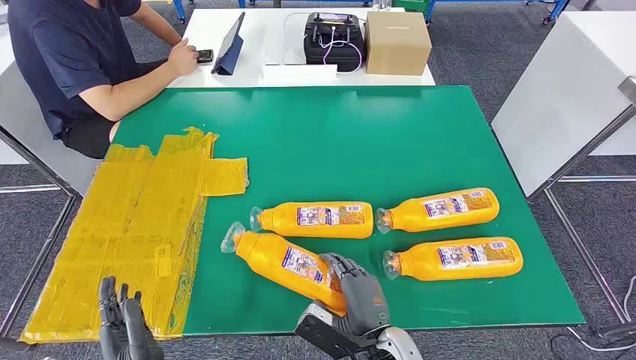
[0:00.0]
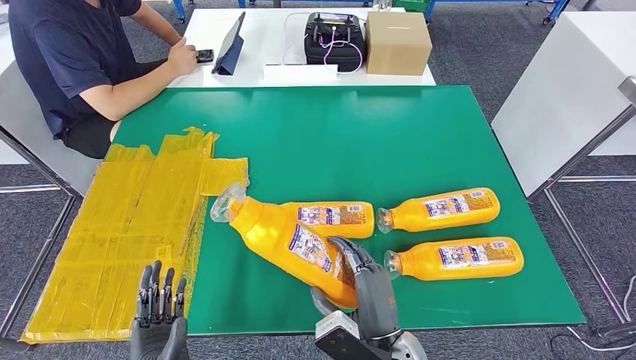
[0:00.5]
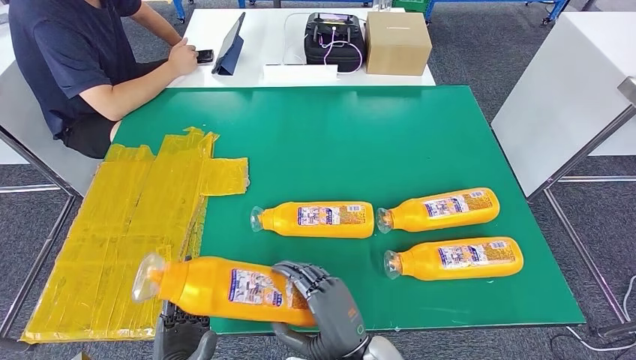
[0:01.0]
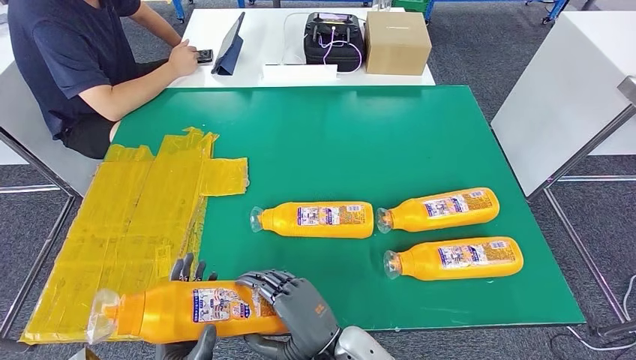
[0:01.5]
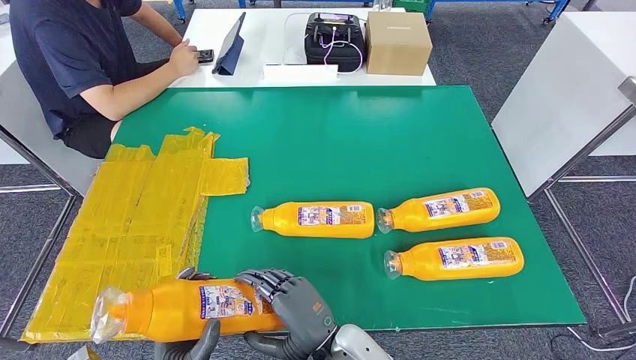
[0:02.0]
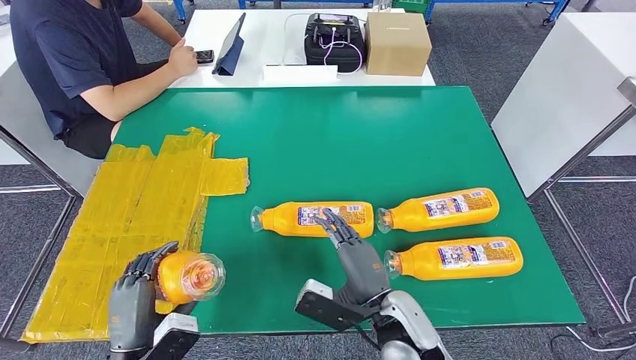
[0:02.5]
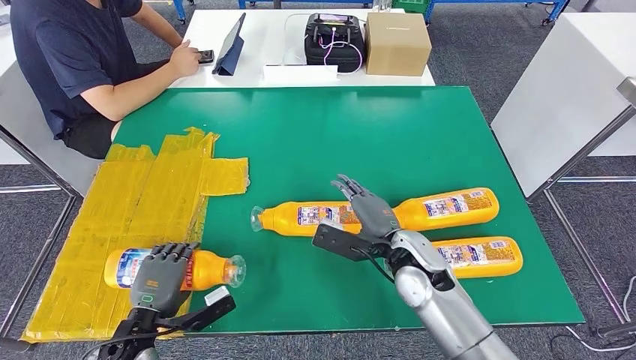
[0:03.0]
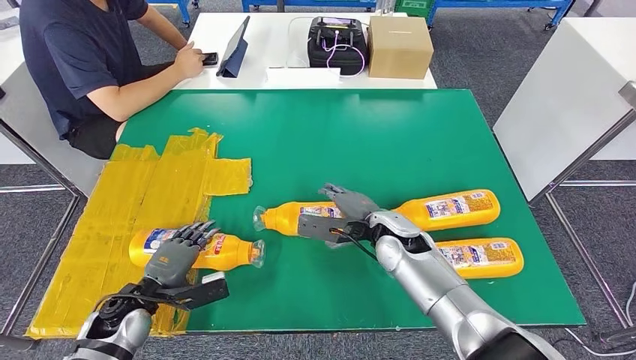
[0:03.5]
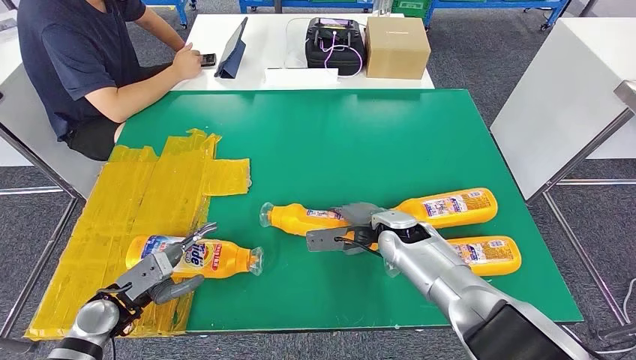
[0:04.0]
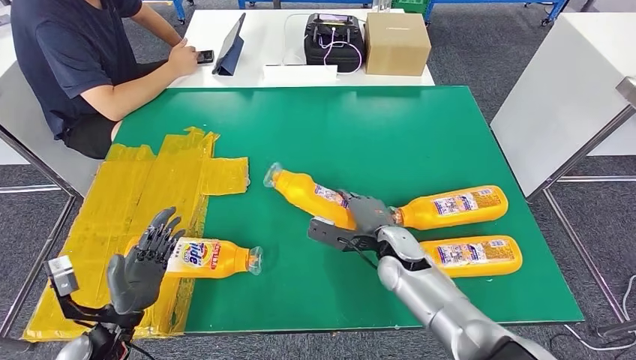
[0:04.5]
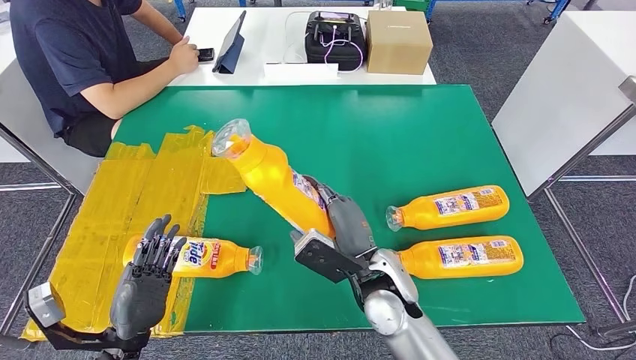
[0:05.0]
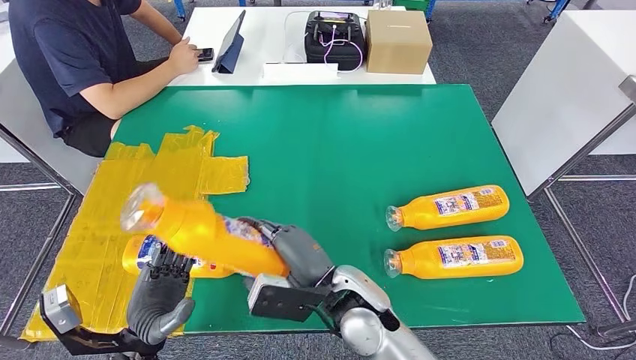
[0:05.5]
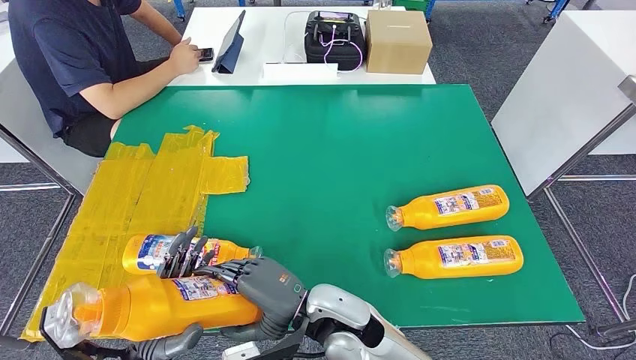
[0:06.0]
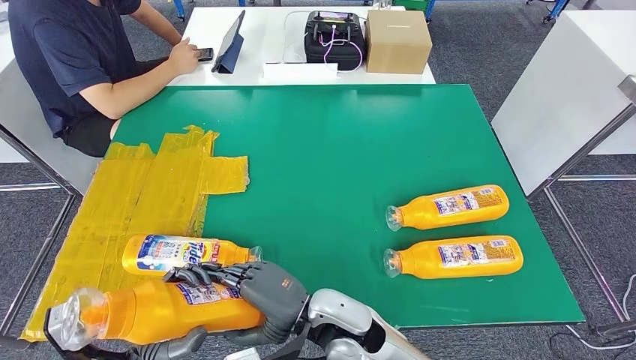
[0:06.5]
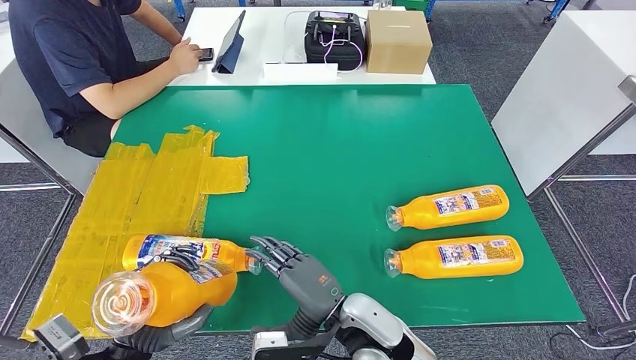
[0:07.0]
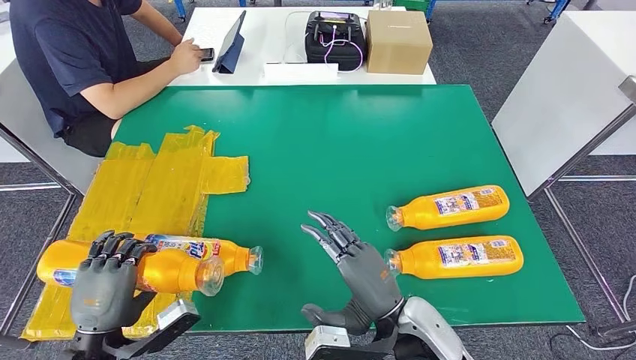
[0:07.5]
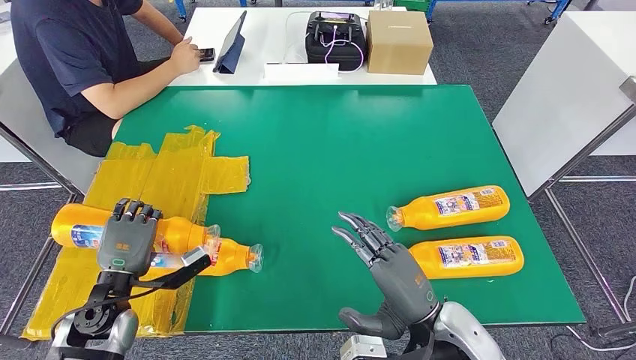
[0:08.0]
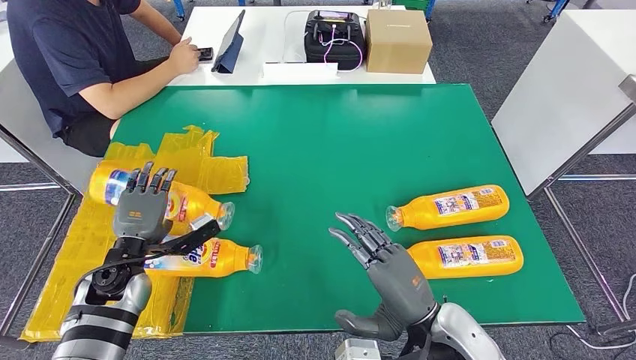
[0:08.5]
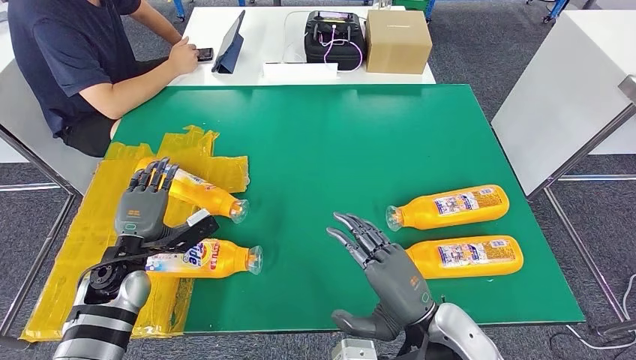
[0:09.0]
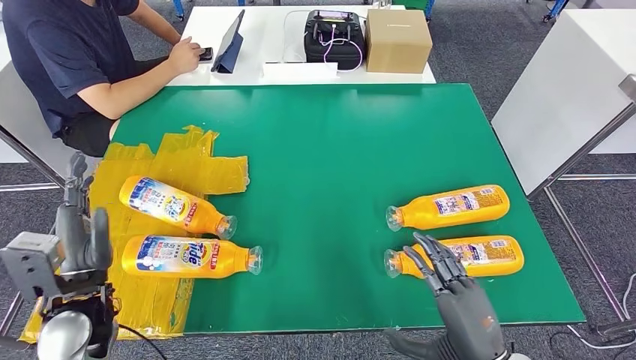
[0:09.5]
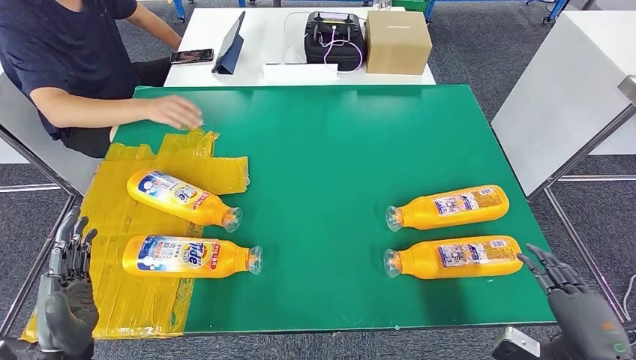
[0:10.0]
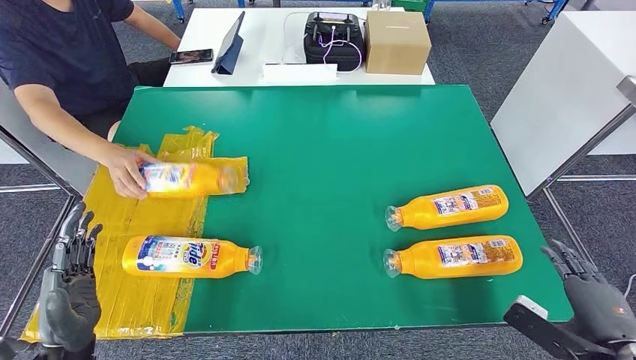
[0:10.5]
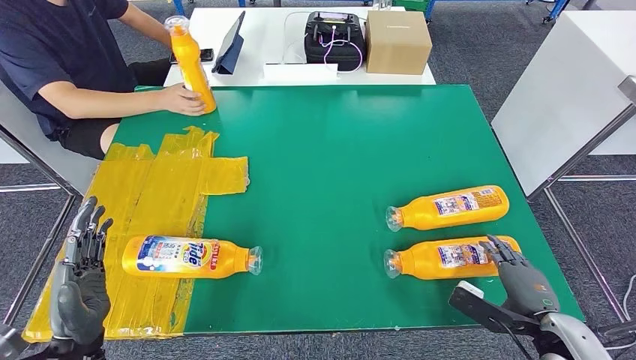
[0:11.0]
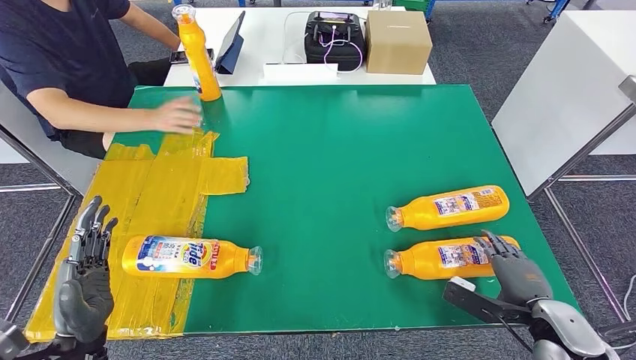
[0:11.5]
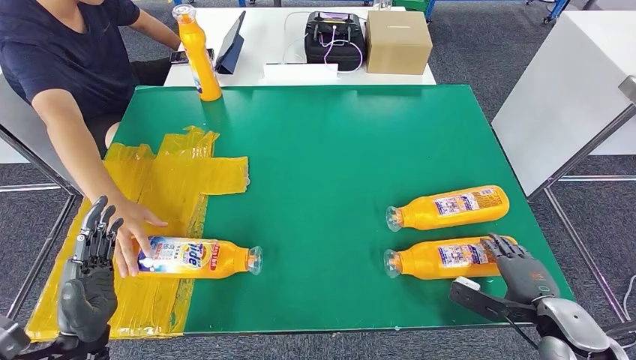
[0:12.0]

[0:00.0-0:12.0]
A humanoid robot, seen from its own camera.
Step, 0:00.0 to 0:02.0: Take the bottle from the table.
Step, 0:02.5 to 0:03.5: Flip the bottle to face forward.
Step, 0:04.0 to 0:06.5: Pick up the bottle from the table.
Step, 0:07.0 to 0:10.0: Flip the bottle to face forward.
0:06.0 to 0:08.0: The left hand shifts some 15 cm forward and to the left; the right hand travels to the right by about 15 cm.
0:10.0 to 0:12.0: The right hand shifts some 15 cm forward and downward.

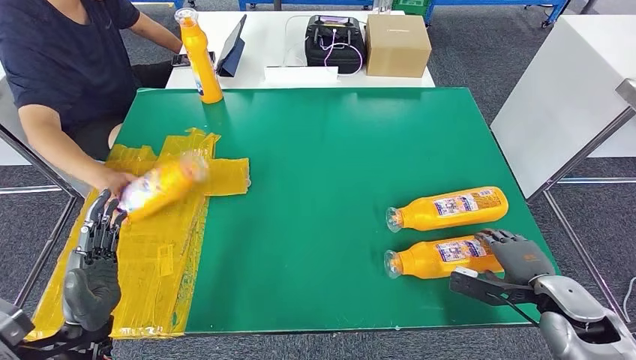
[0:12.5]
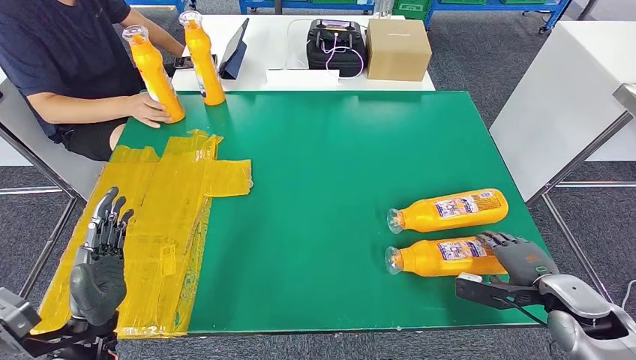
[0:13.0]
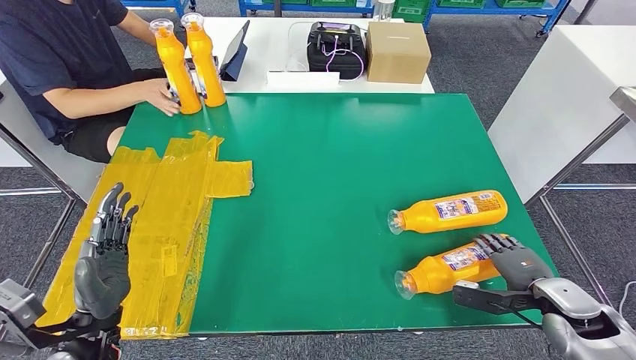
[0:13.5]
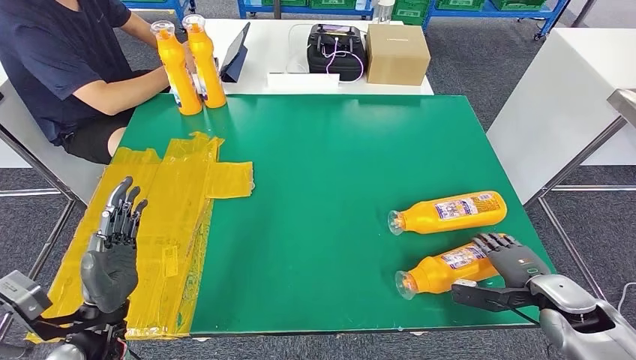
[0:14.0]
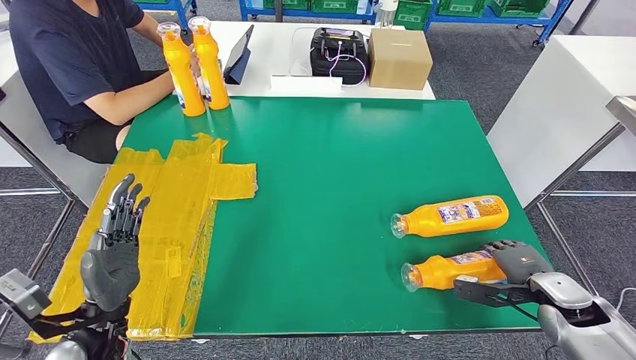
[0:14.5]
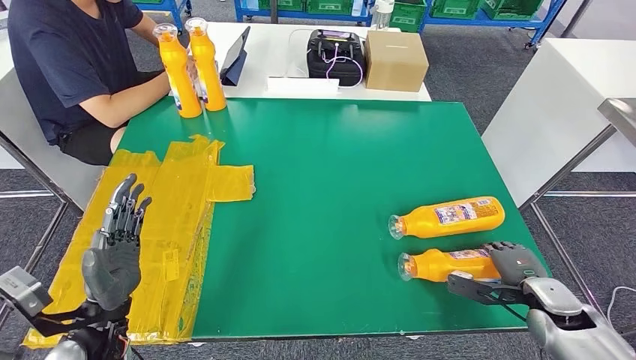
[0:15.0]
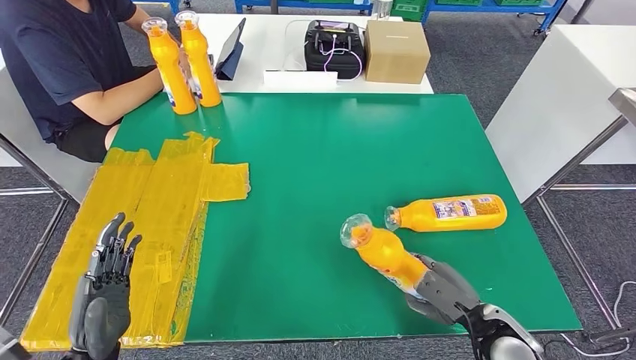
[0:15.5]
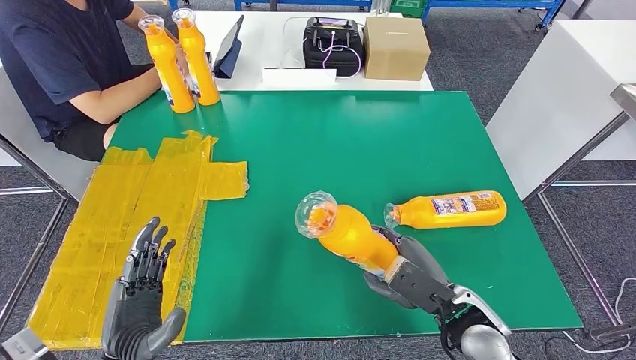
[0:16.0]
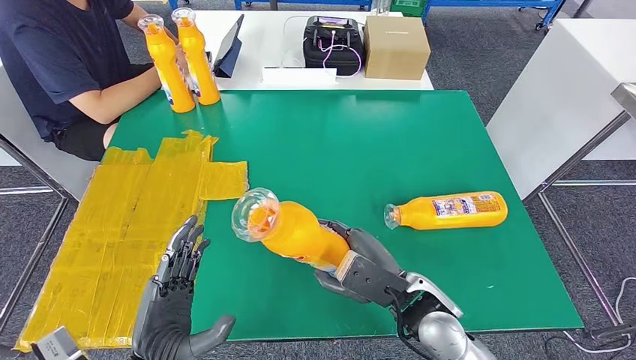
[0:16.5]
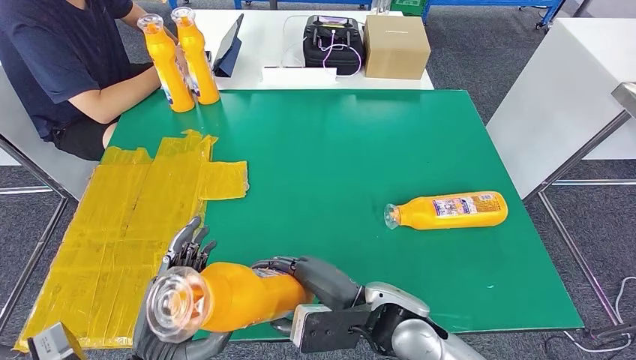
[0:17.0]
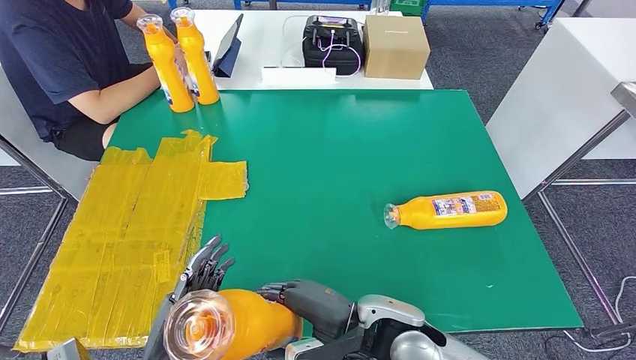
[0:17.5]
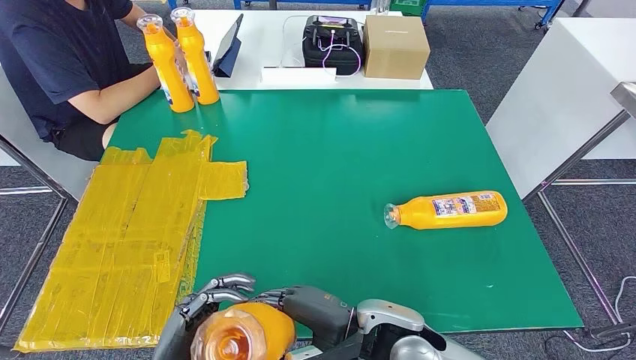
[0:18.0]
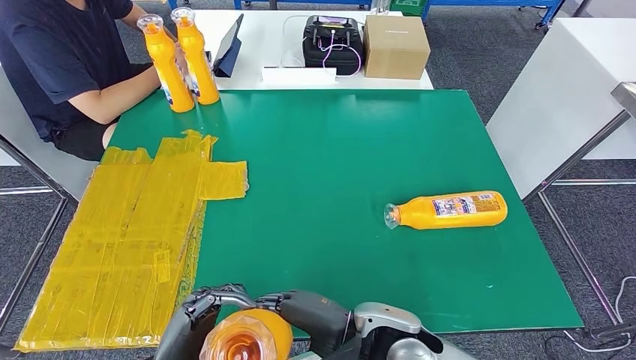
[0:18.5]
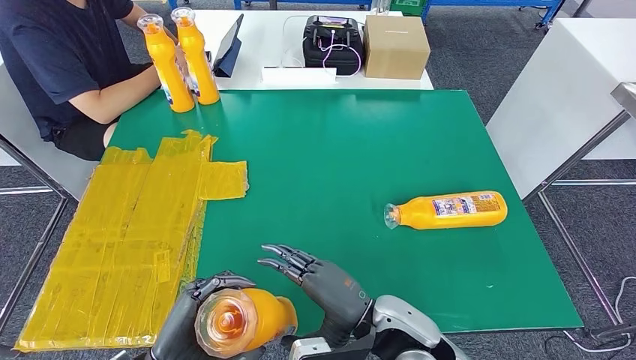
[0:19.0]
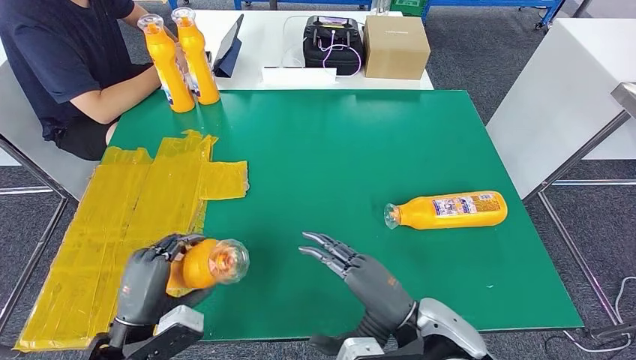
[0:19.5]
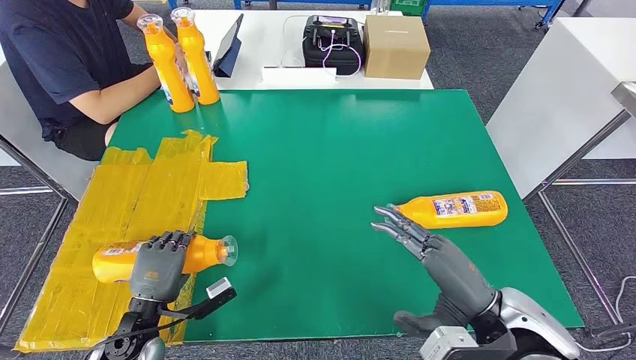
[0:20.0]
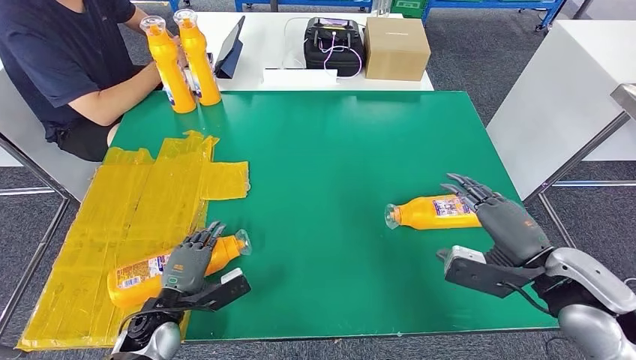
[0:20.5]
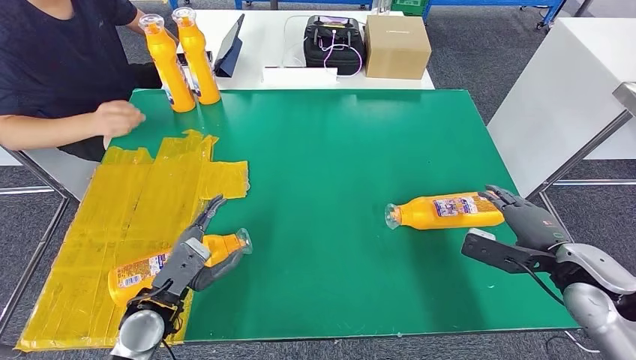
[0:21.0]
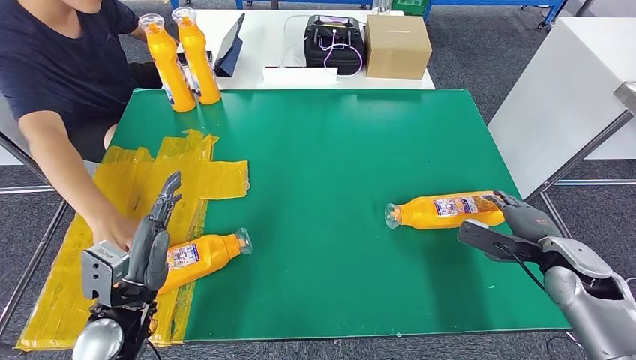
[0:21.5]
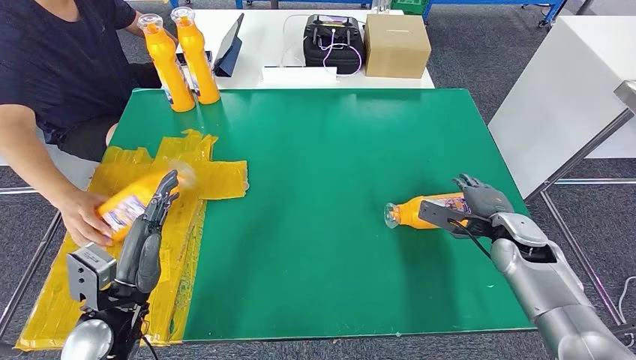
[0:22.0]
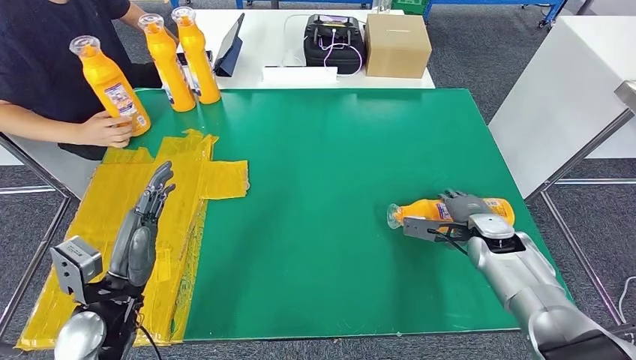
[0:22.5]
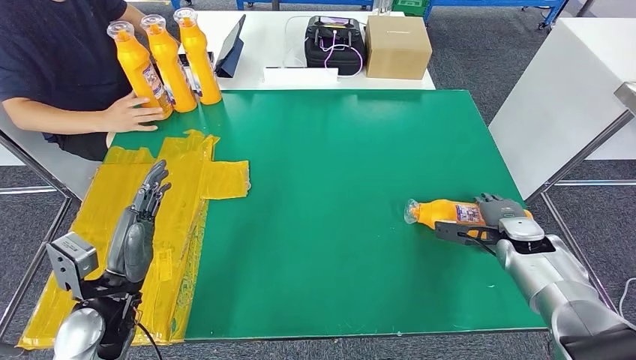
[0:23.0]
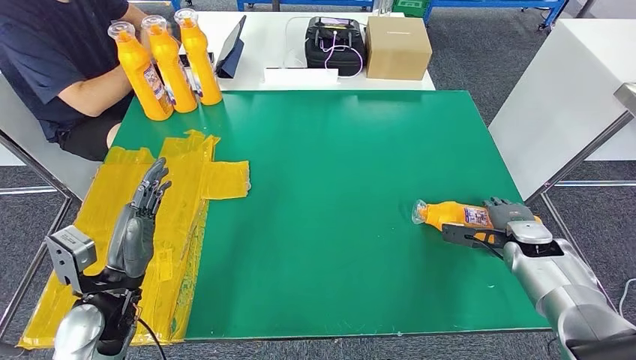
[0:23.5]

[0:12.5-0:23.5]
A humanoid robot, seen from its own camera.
Step, 0:13.0 to 0:16.0: Pick up the bottle from the table.
Step, 0:16.5 to 0:22.0: Flip the bottle to face forward.
0:16.0 to 0:18.0: The left hand shifts about 5 cm to the right; the right hand moves to the left, some 15 cm.
0:18.0 to 0:20.0: The left hand shifts some 15 cm forward, downward and to the left, while the right hand goes approximately 15 cm to the right.
